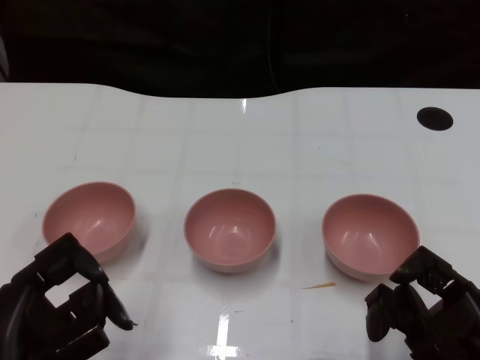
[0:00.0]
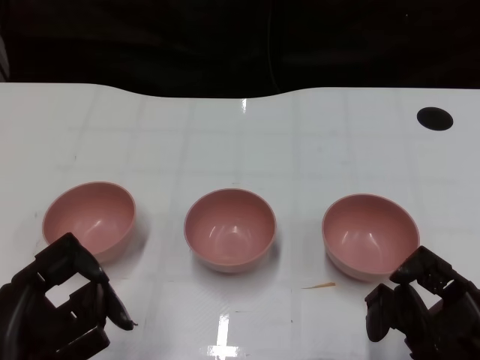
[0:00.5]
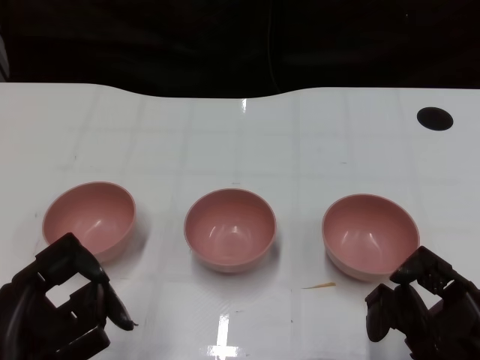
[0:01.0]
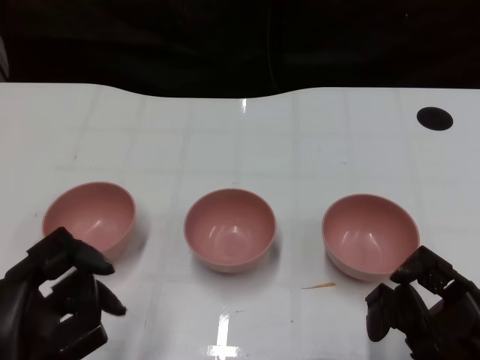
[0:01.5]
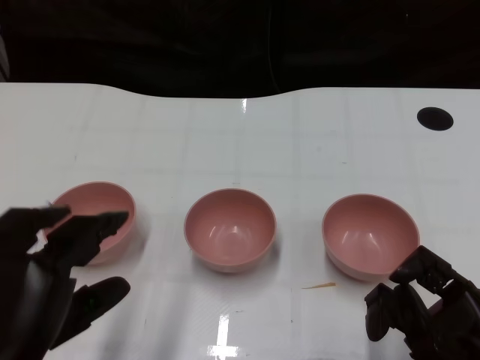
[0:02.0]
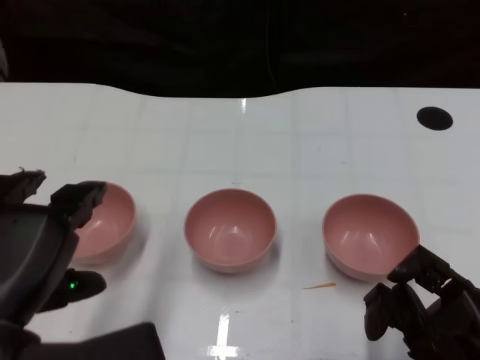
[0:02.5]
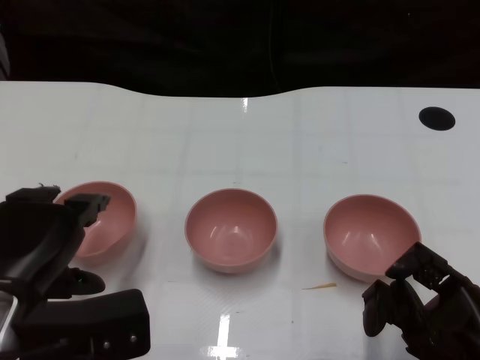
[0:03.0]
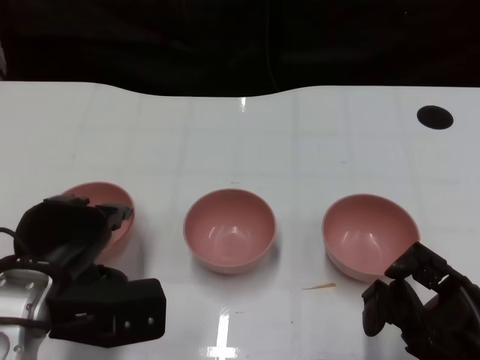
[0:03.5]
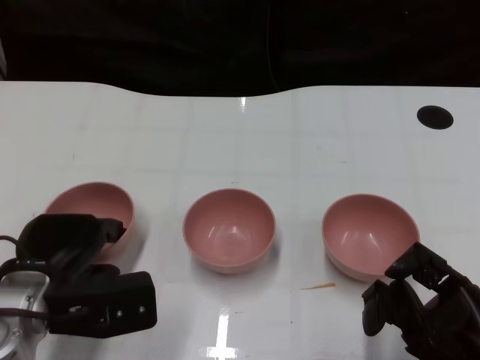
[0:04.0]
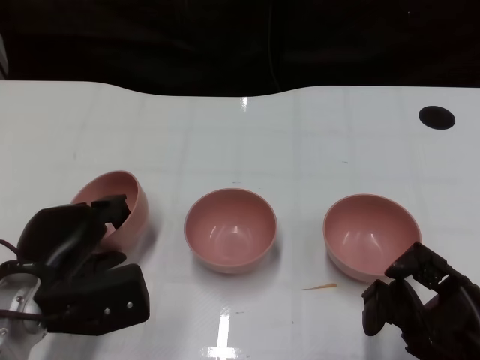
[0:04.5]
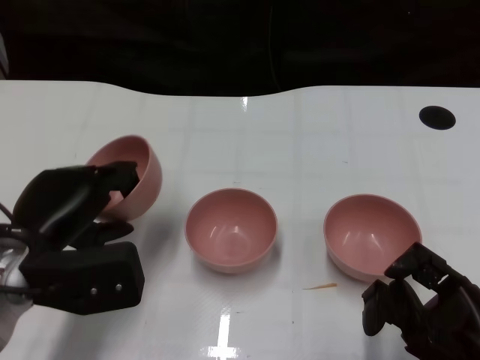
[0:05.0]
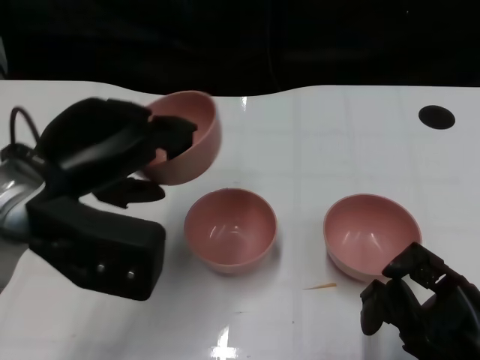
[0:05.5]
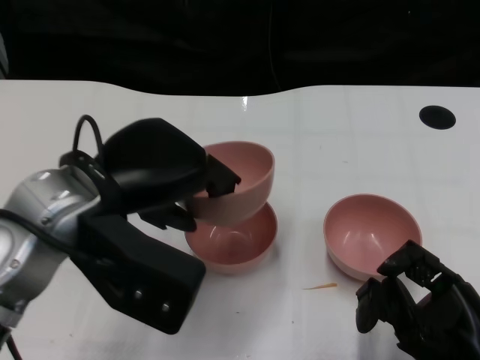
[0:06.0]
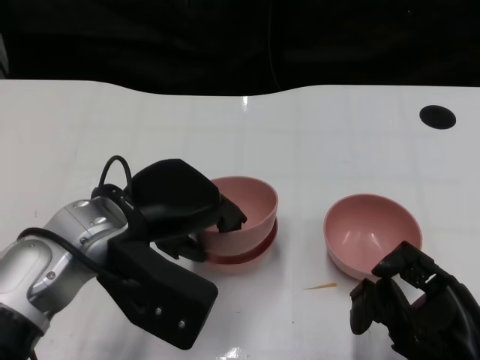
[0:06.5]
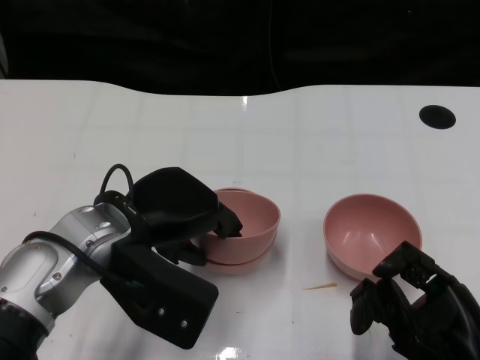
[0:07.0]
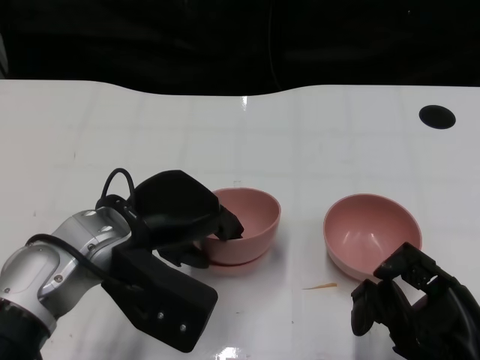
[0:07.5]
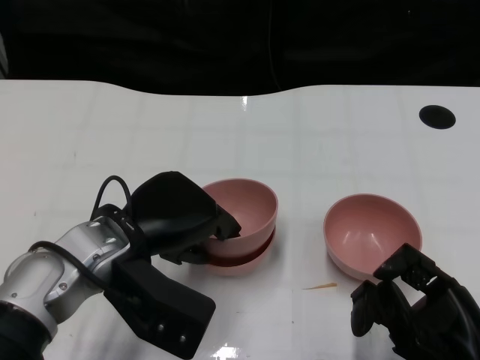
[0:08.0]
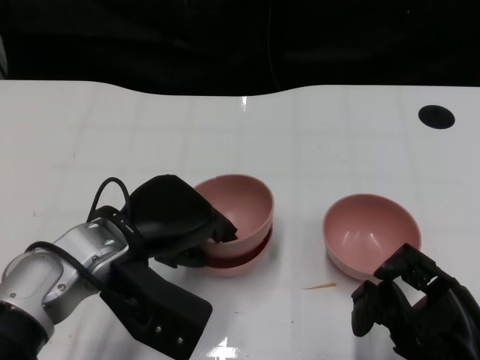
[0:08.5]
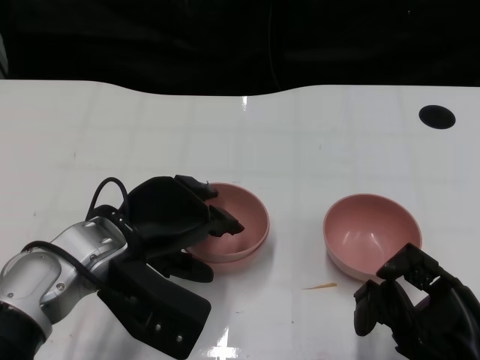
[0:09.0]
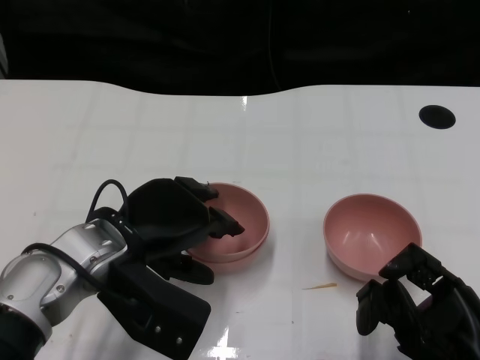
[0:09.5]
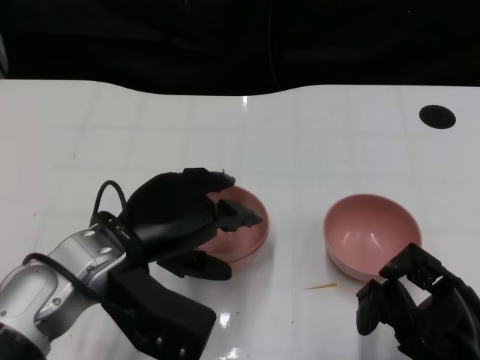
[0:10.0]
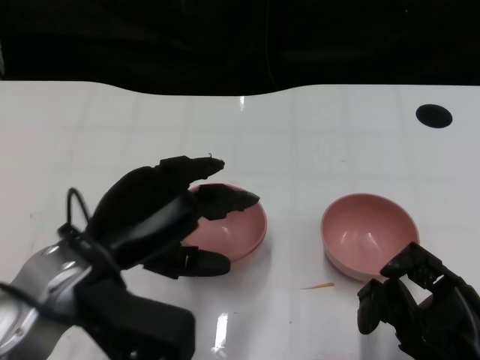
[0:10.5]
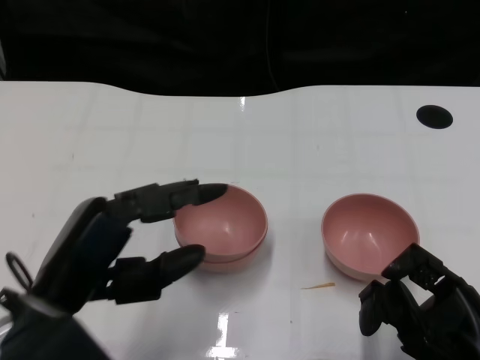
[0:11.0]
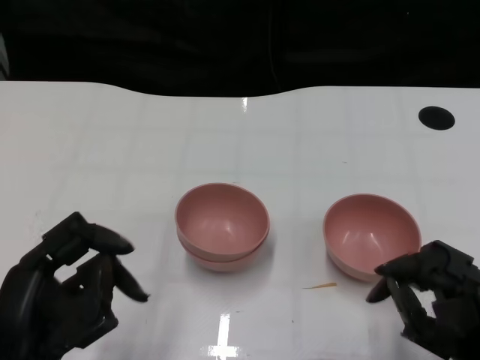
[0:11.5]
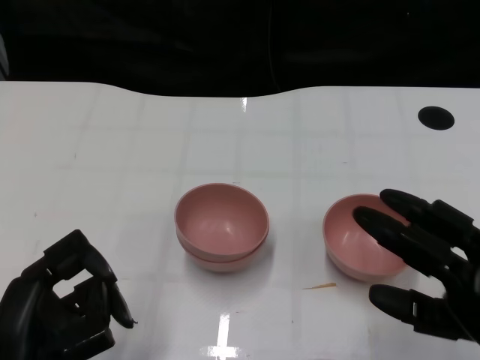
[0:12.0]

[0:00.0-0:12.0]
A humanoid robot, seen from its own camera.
Task of the whole recording: Pick up the bowl on one side of the table and place it on top of the middle bowl, then pick up the bowl on the other side of the table and place it on top of the middle bowls.
Step, 0:01.5 to 0:04.0: Grasp the bowl on the left with the left gripper.
Step, 0:05.0 to 0:10.0: Place the bowl on the left onto the bowl in the middle with left gripper.
0:02.0 to 0:04.0: The left hand heads forward and downward, covering approximately 15 cm.
0:04.0 to 0:06.0: The left hand shifts approximately 15 cm upward and to the right.
0:06.0 to 0:08.0: The left hand travels downward by roughly 10 cm.
0:08.0 to 0:10.0: The hands make only small movements.
0:10.0 to 0:12.0: The left hand travels backward and to the left by about 15 cm.

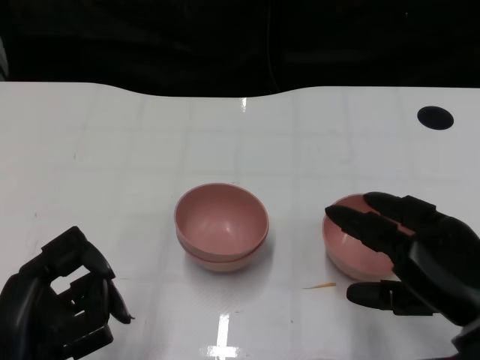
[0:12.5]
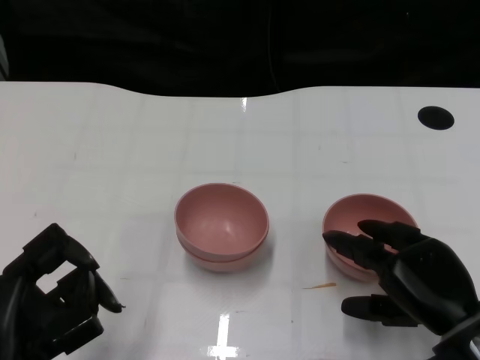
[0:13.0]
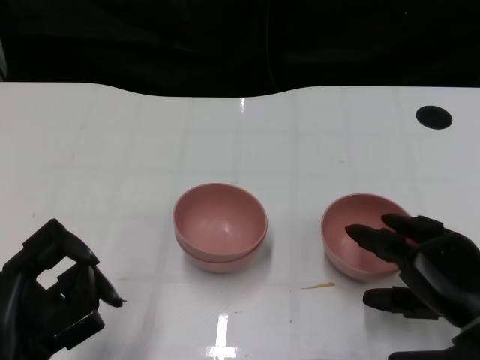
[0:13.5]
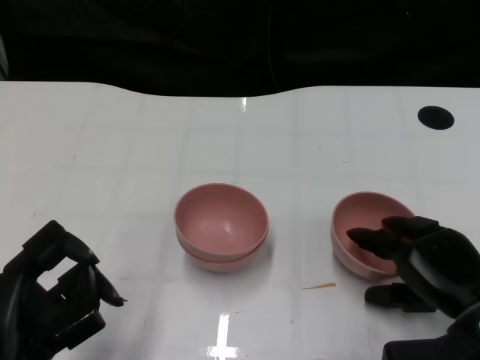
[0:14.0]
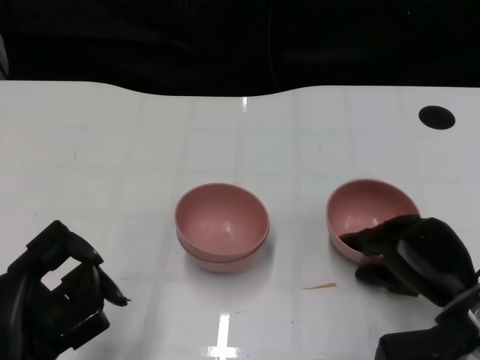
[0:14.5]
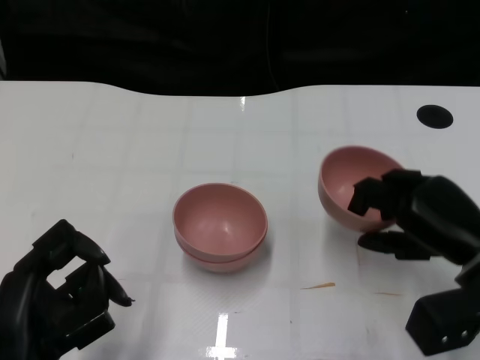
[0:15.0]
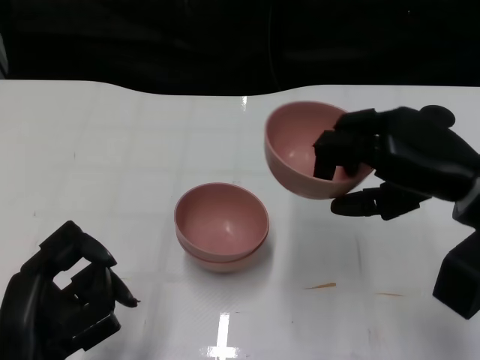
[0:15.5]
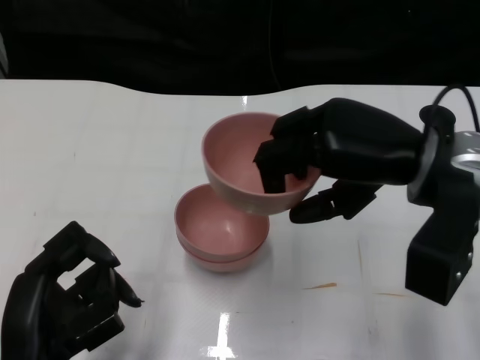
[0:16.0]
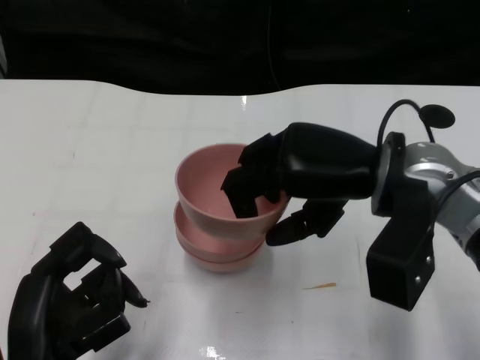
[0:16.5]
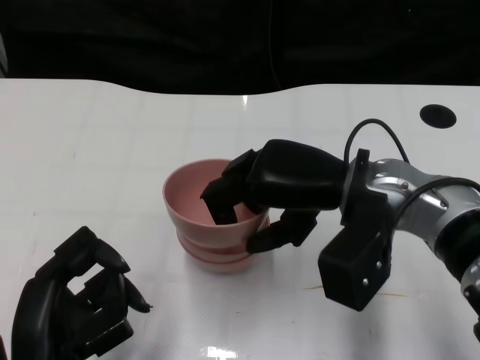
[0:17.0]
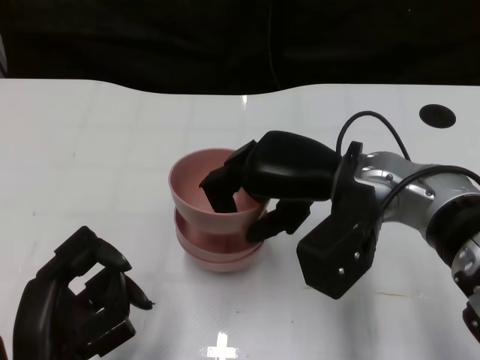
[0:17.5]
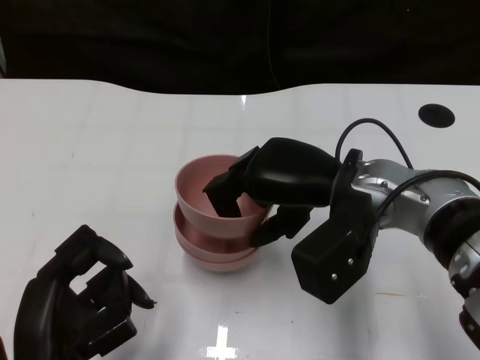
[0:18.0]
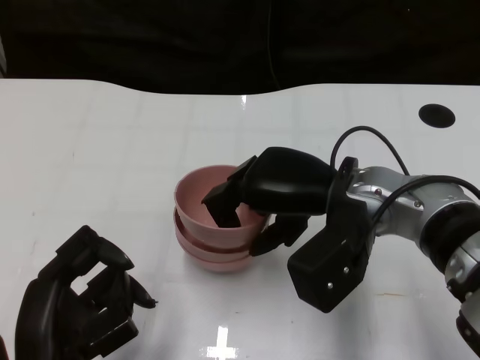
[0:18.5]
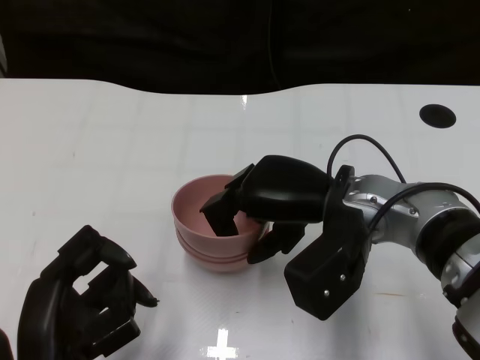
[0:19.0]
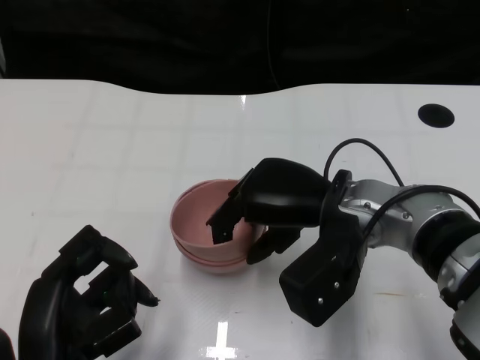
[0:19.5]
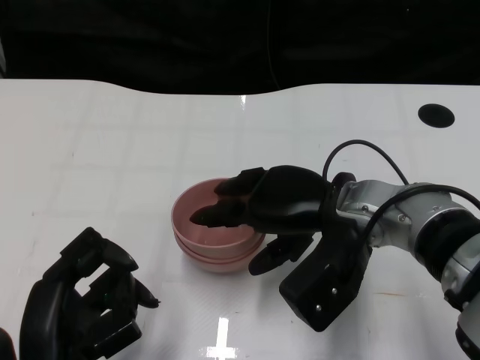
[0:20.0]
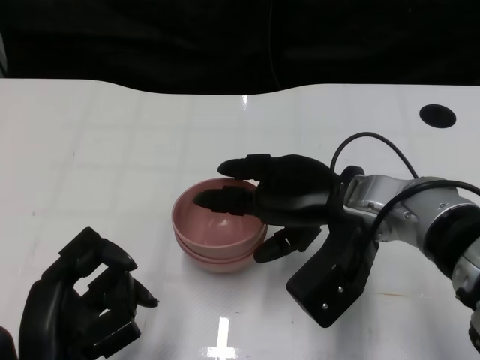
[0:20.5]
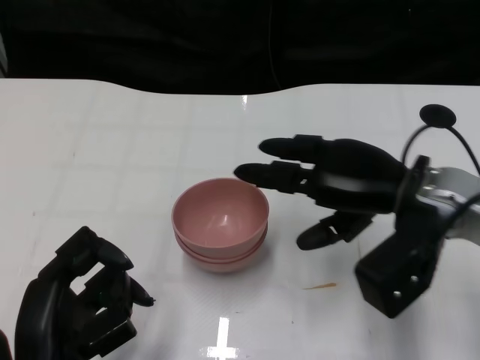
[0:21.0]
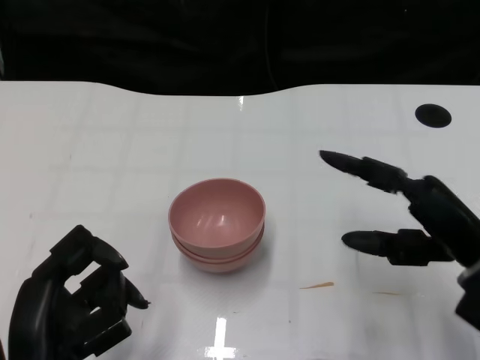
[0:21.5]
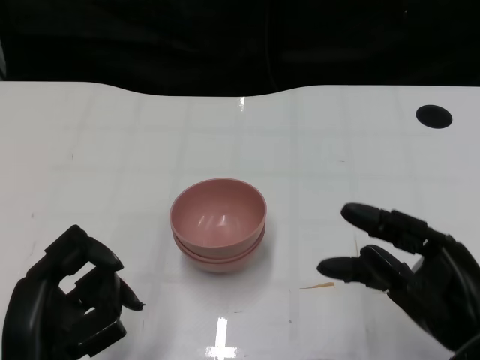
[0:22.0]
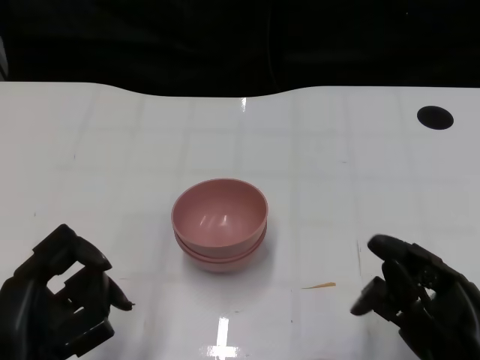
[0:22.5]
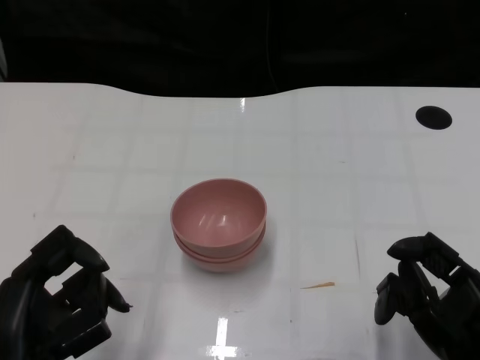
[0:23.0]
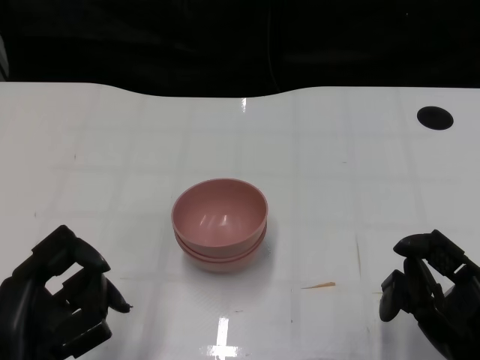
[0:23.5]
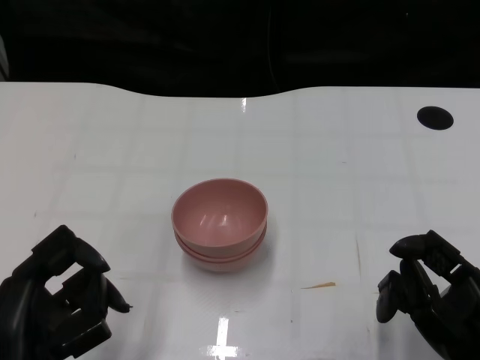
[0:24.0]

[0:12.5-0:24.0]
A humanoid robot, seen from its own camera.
Task of the whole recording: Pick up the bowl on one side of the table and place it on top of the middle bowl, then pick up the bowl on the other side of the table and place it on top of the middle bowls.
Step, 0:12.5 to 0:14.5: Grasp the bowl on the right with the right gripper.
Step, 0:15.0 to 0:20.5: Place the bowl on the right onto the bowl in the middle with right gripper.
0:12.5 to 0:14.5: The right hand is displaced downward and forward by some 10 cm.
0:14.5 to 0:16.5: The right hand is displaced upward and to the left by some 15 cm.
0:16.5 to 0:18.5: The right hand moves about 5 cm.
0:18.5 to 0:20.0: The hands stay close to where they were, moving slightly.
0:20.0 to 0:22.0: The right hand is displaced backward and to the right by roughly 15 cm.

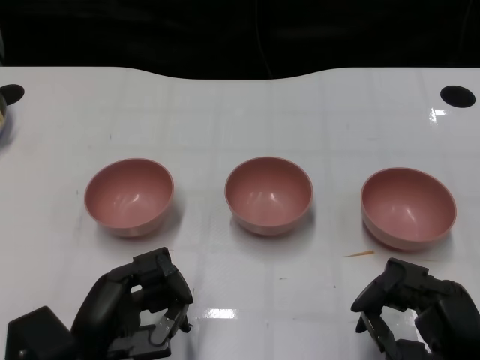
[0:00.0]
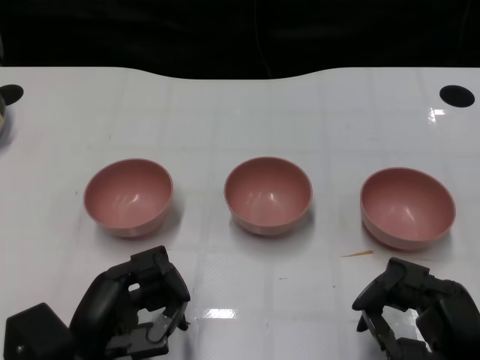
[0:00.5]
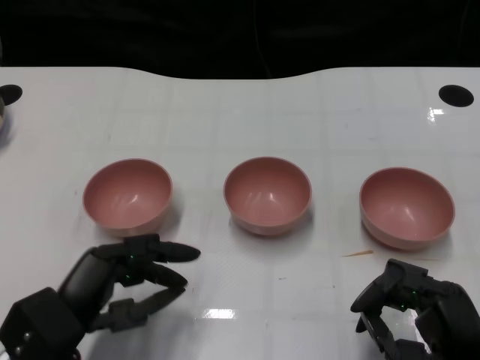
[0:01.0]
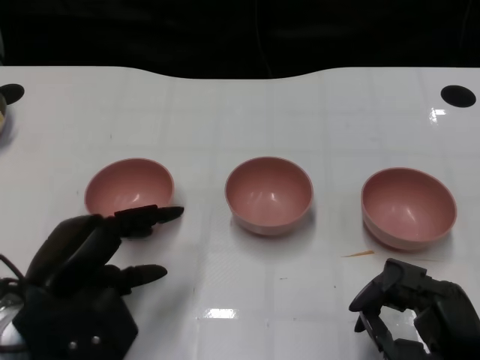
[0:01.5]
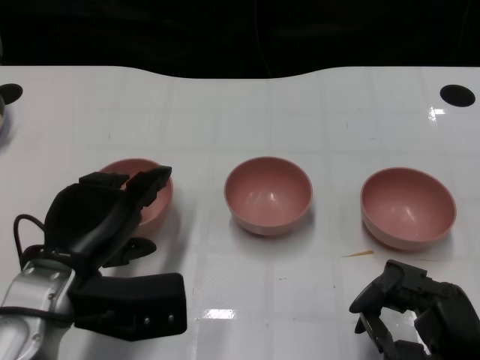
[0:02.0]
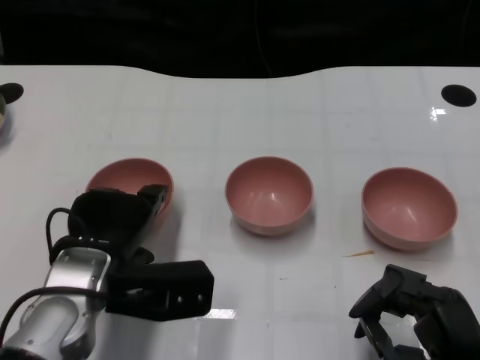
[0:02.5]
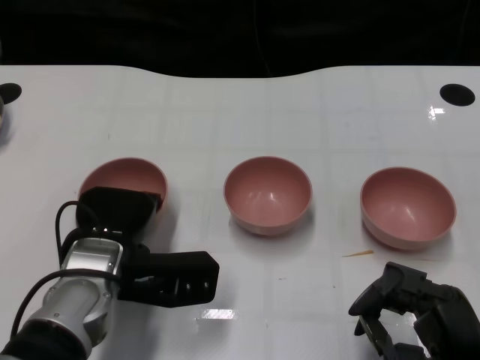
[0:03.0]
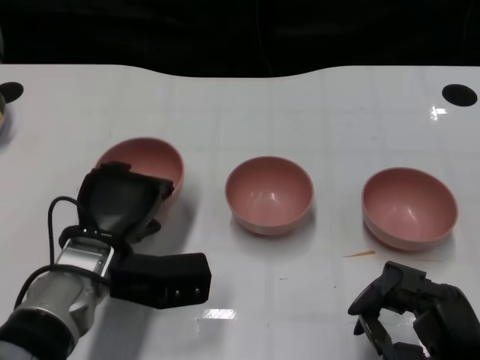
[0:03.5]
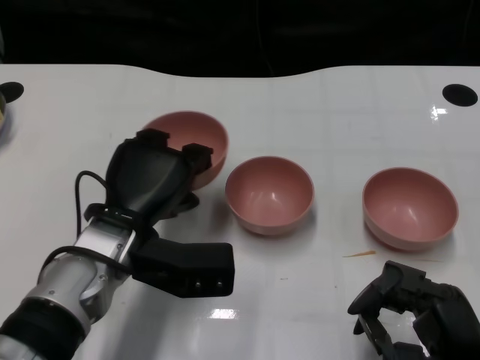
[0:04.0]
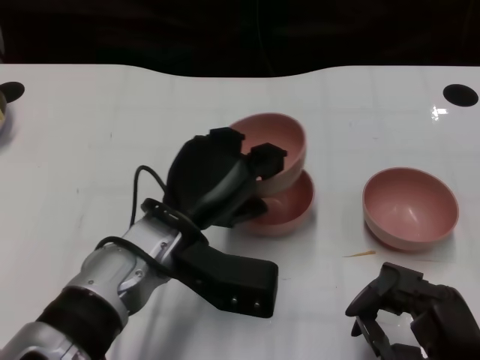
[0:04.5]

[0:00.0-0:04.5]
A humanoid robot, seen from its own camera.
Task of the whole recording: Pick up the bowl on one side of the table and place it on top of the middle bowl, then pick up the bowl on the other side of the table and place it on top of the middle bowls.
Step, 0:01.0 to 0:03.0: Grasp the bowl on the left with the left gripper.
0:02.0 to 0:04.5: The left hand goes roughly 10 cm to the right.
